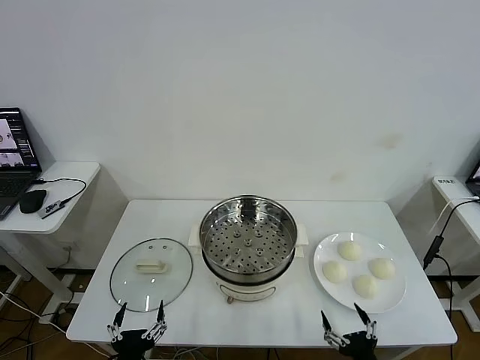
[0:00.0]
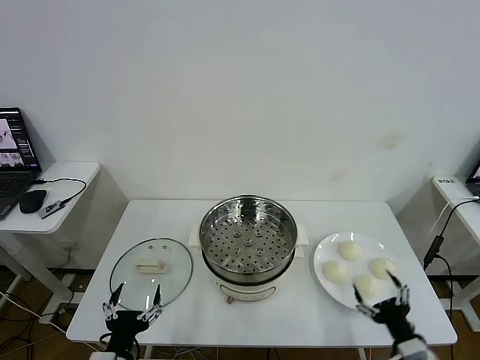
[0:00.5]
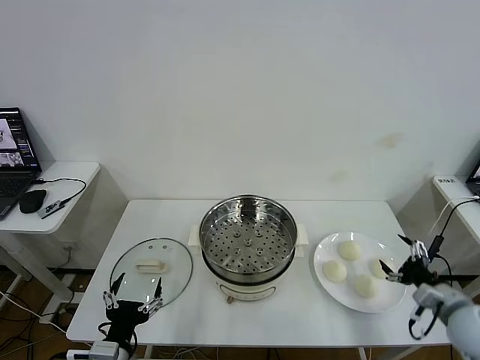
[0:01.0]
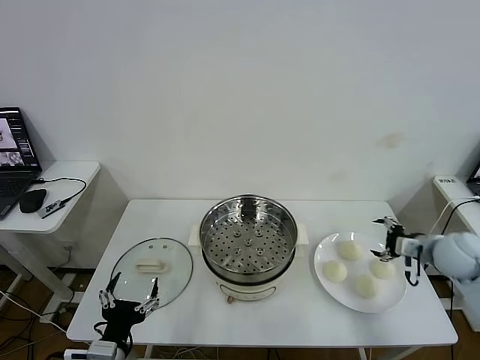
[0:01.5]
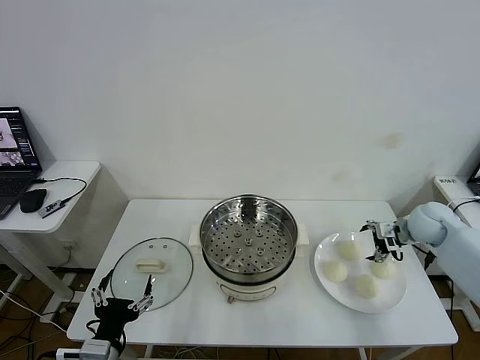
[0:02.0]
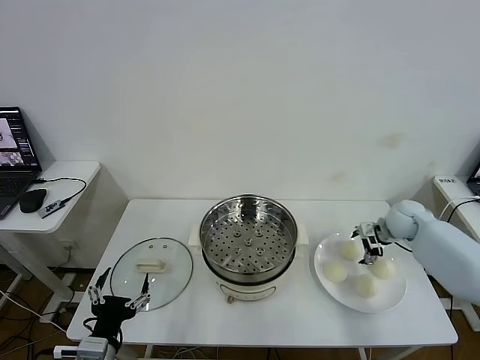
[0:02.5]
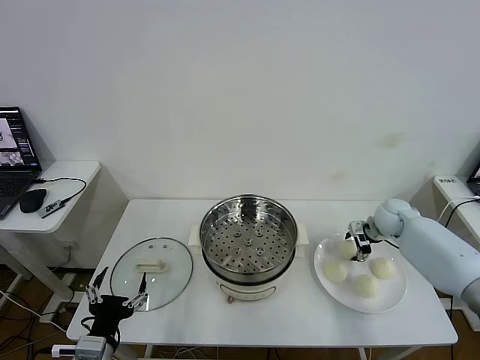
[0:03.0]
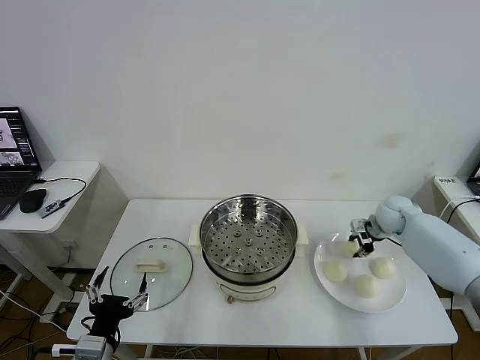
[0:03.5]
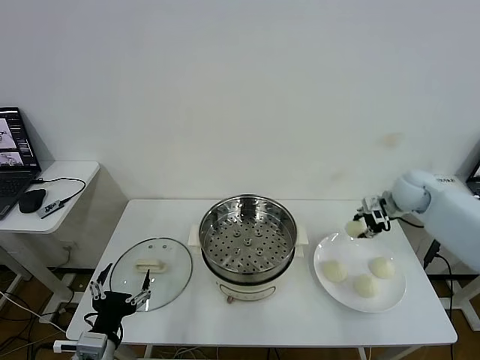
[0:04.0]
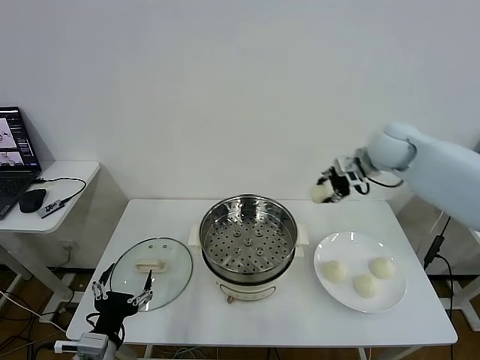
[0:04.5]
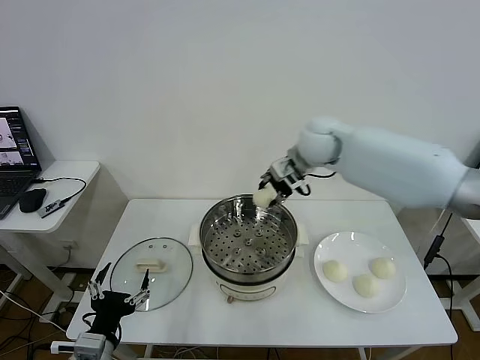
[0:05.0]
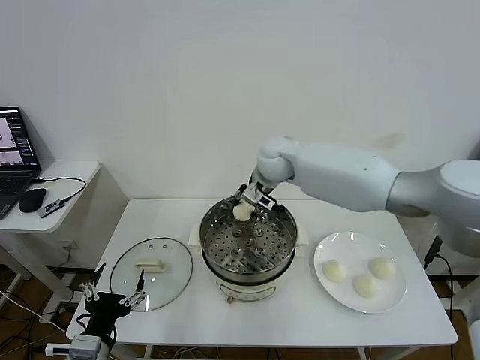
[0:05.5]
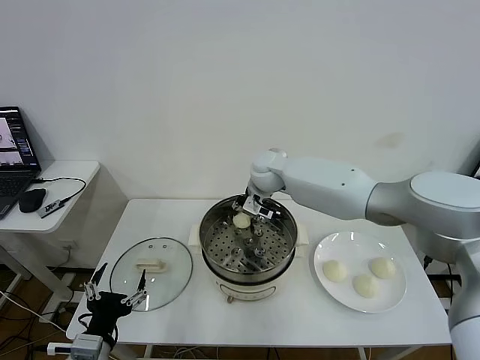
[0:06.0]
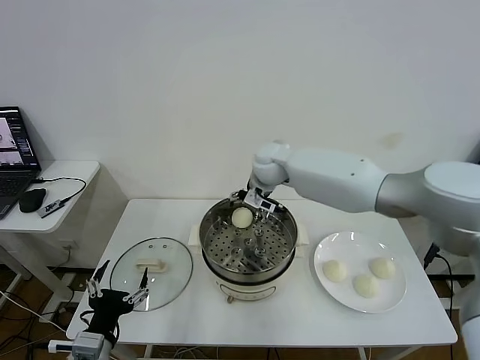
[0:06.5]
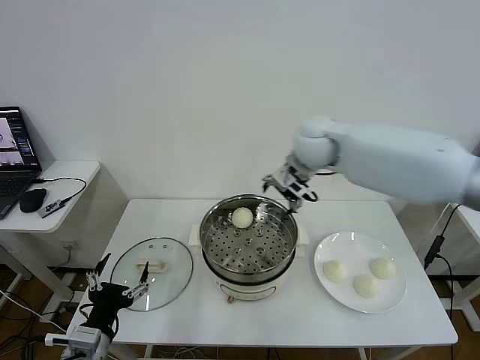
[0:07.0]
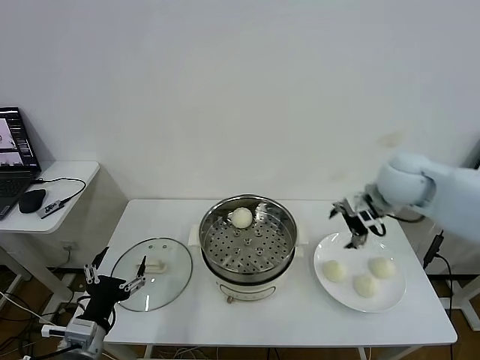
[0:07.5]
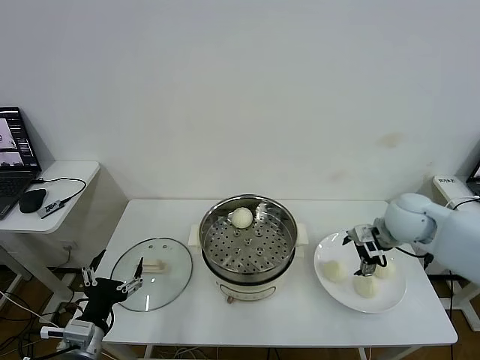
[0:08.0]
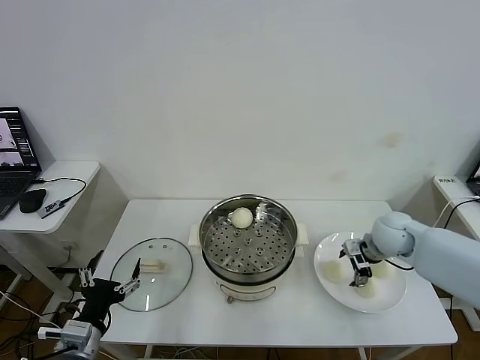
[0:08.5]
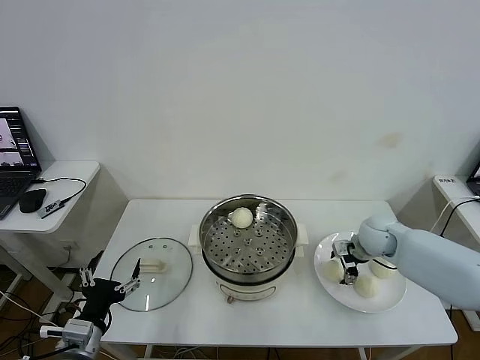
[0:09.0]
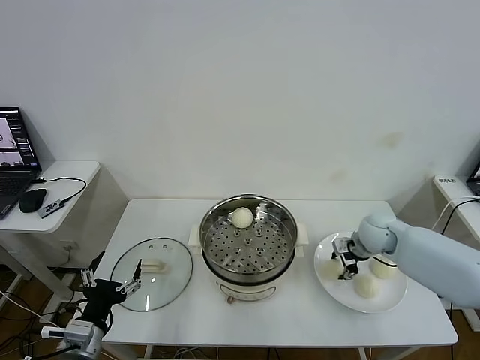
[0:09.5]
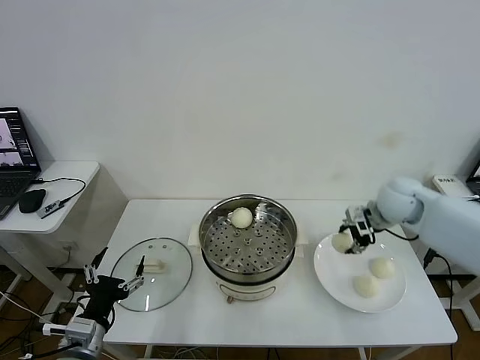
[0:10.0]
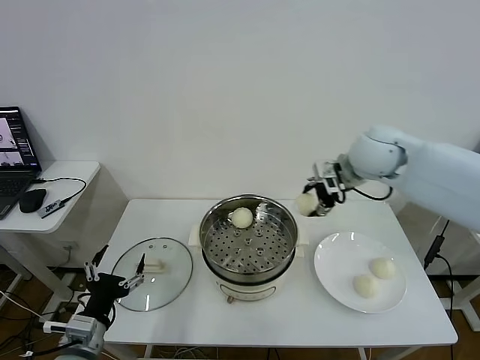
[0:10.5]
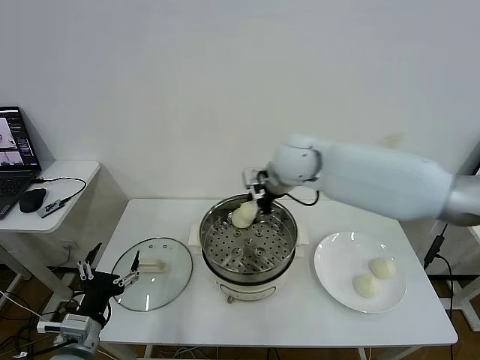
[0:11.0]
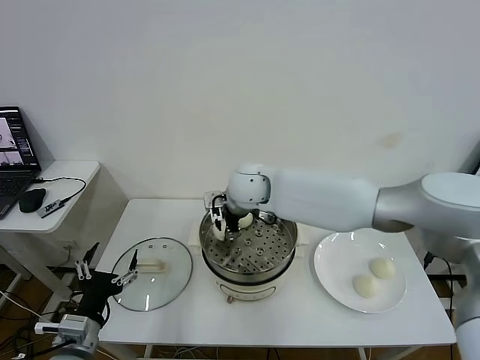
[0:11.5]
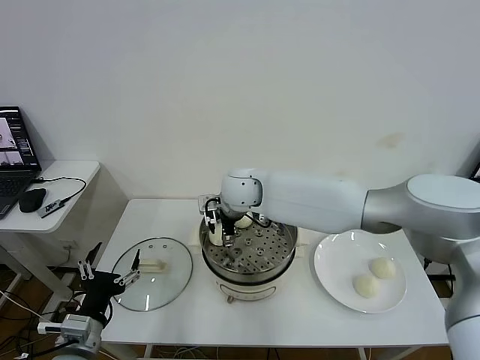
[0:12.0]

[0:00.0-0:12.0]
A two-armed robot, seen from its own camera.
Task of the whole recording: take steamed baozi put them in steamer then cover it.
Step, 0:00.0 to 0:03.0: Grasp the baozi in the plate with right gripper.
Step, 0:03.5 to 0:06.0: Place the baozi on the steamer with right gripper.
Step, 0:06.5 to 0:09.0: Grasp the baozi in the plate with right gripper.
Step, 0:09.5 to 0:11.5: Place the baozi on the steamer with right gripper.
0:02.0 to 0:04.0: The right gripper travels forward and upward by about 10 cm, and closes its fingers.
0:04.0 to 0:06.0: The right gripper shifts approximately 35 cm to the left.
0:06.0 to 0:08.0: The right gripper heads to the right and backward, covering roughly 30 cm, and opens.
0:08.0 to 0:10.0: The right gripper travels downward and back again, roughly 10 cm each way, and closes its fingers.
0:10.0 to 0:12.0: The right gripper moves to the left, roughly 35 cm, and opens its fingers.

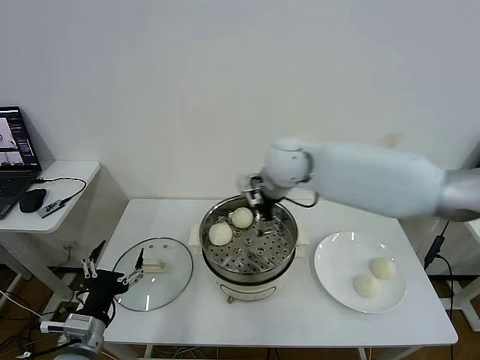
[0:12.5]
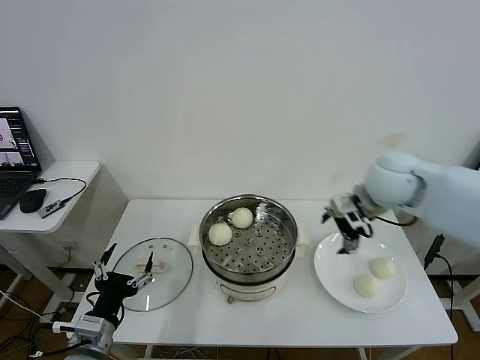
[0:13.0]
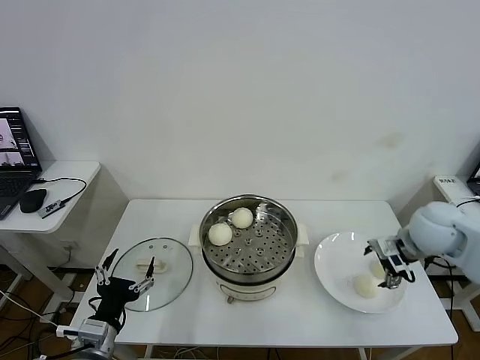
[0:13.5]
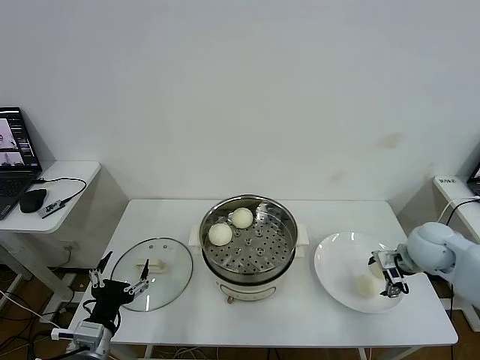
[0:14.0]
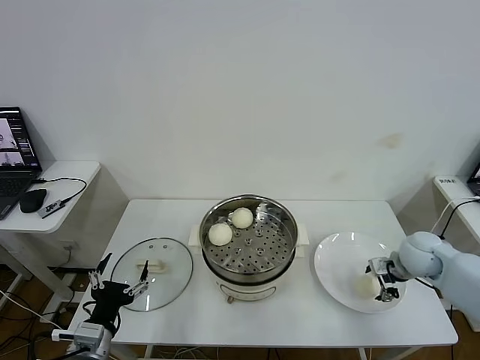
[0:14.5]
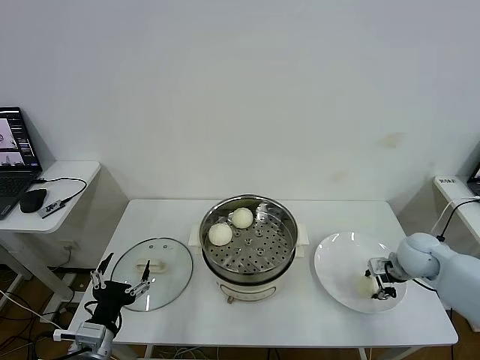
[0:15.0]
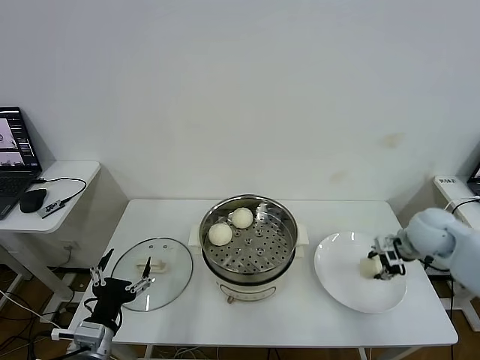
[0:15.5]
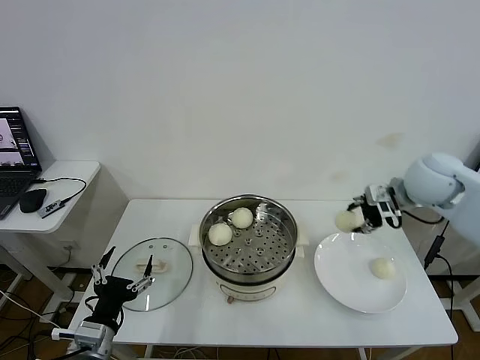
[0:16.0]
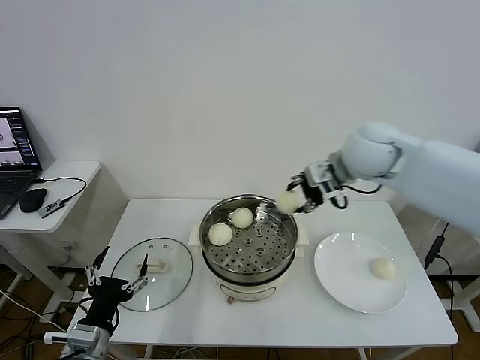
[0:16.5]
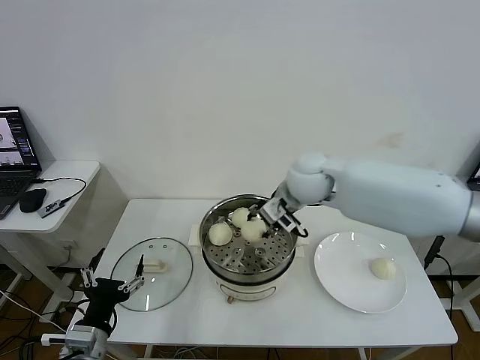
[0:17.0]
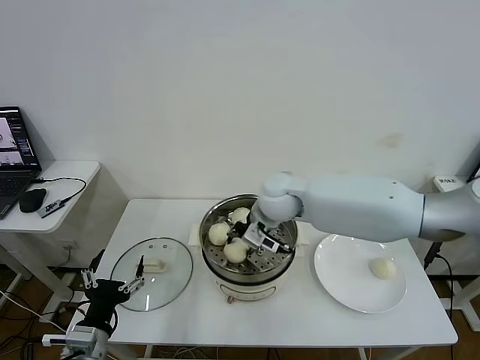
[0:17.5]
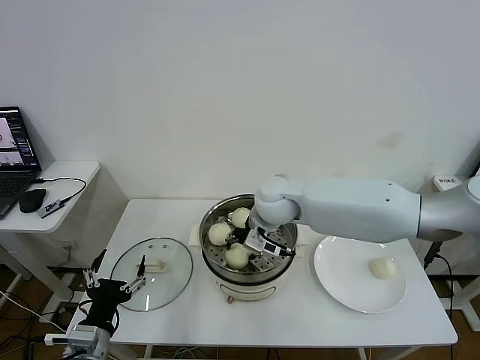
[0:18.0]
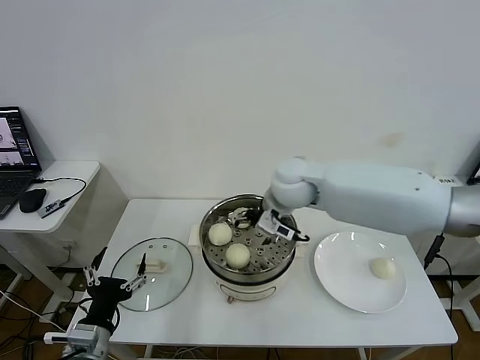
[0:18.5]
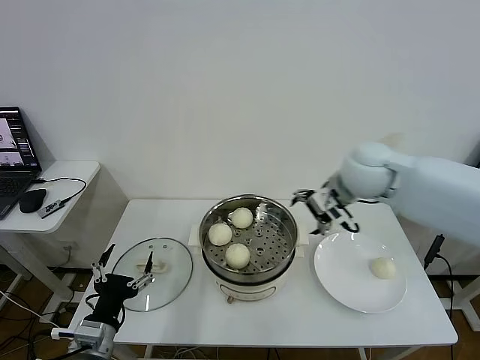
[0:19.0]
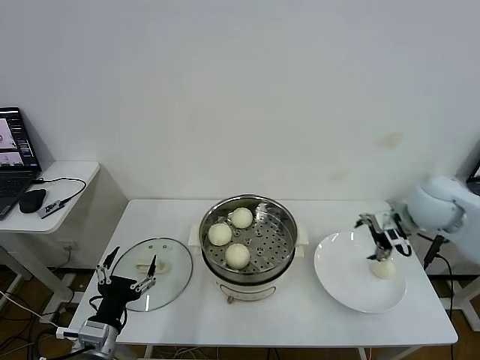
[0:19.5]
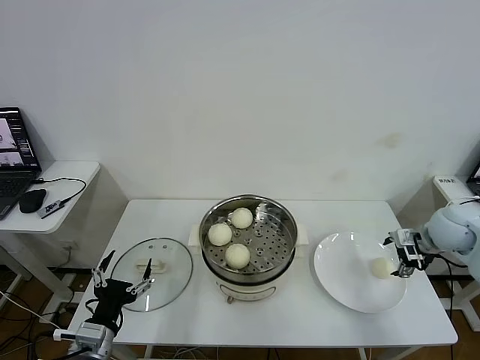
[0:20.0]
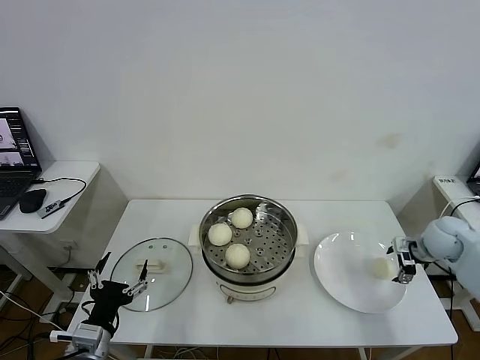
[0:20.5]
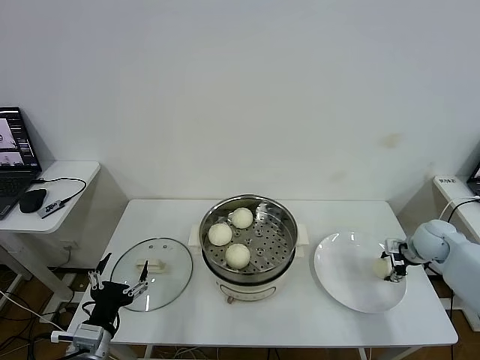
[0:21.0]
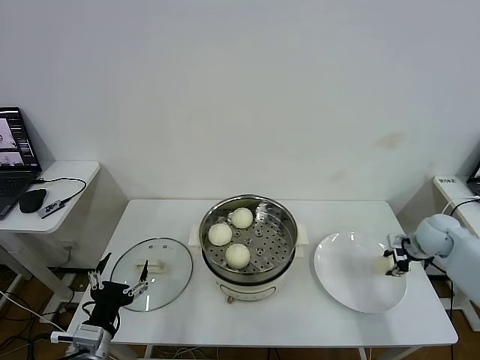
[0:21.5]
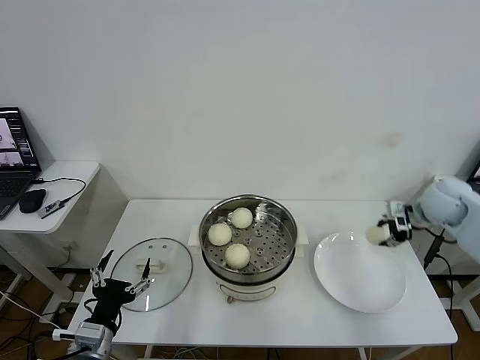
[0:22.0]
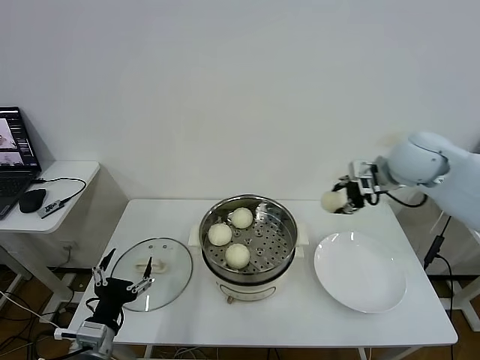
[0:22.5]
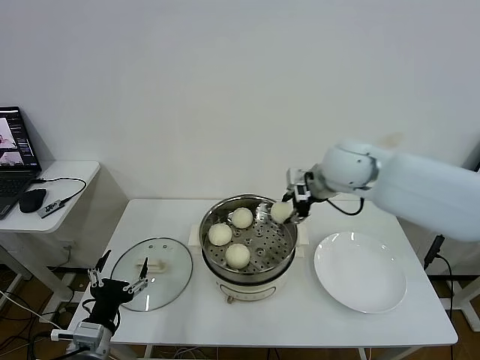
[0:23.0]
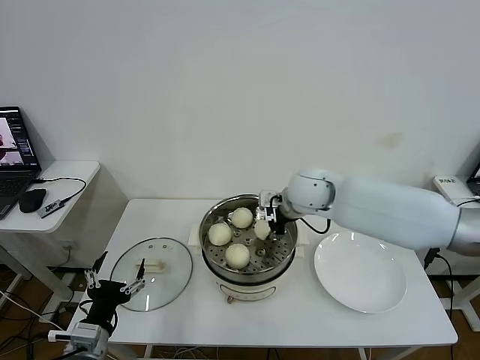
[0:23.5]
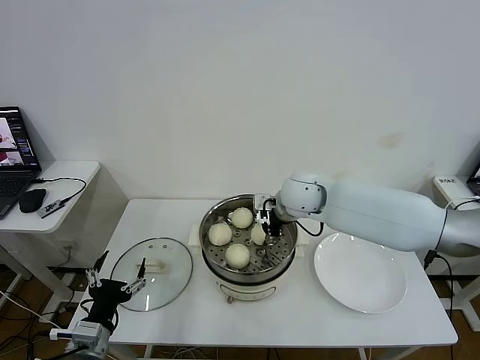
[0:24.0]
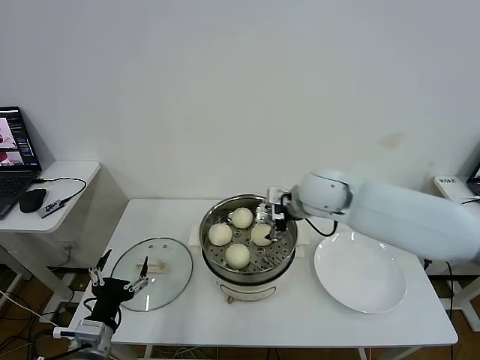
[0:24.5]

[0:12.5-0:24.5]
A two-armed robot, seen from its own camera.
Task of the whole recording: take steamed baozi put them in steamer then cover it.
Step, 0:12.5 to 0:14.5: Grasp the baozi in the plate with right gripper.
Step, 0:15.0 to 0:18.0: Place the baozi on the steamer with right gripper.
Step, 0:18.5 to 0:21.0: Grasp the baozi in the plate with right gripper.
Step, 0:21.5 to 0:24.0: Place the baozi on the steamer with right gripper.
0:12.5 to 0:14.5: The right gripper goes about 40 cm to the right and downward.
0:14.5 to 0:16.5: The right gripper goes some 30 cm upward and to the left, and closes its fingers.
0:16.5 to 0:18.5: The right gripper goes roughly 15 cm to the left and downward, and opens.
0:18.5 to 0:20.5: The right gripper goes about 40 cm to the right.
0:20.5 to 0:22.5: The right gripper heads upward and to the left, covering some 25 cm, and closes up.
0:22.5 to 0:24.5: The right gripper goes roughly 20 cm to the left, and opens up.

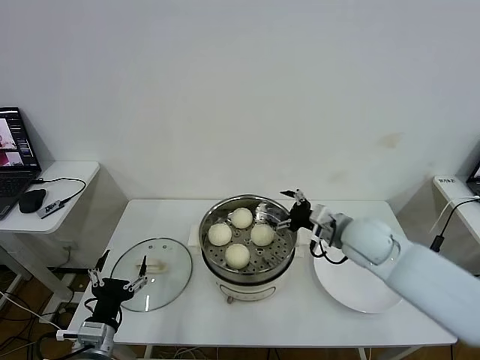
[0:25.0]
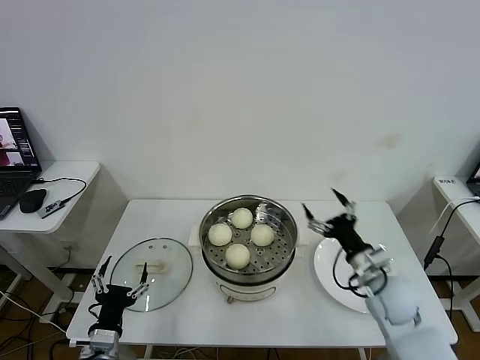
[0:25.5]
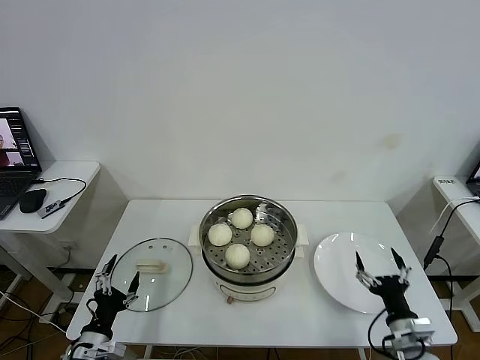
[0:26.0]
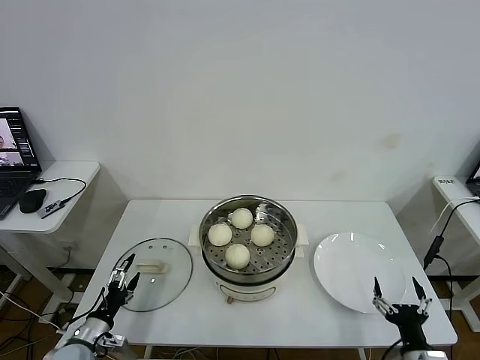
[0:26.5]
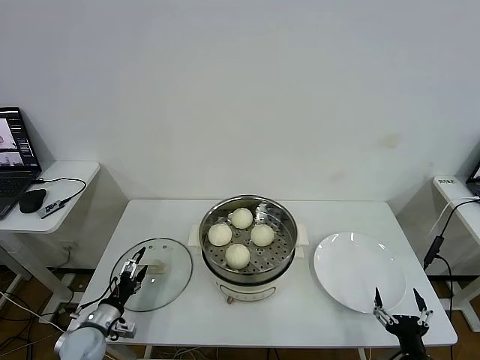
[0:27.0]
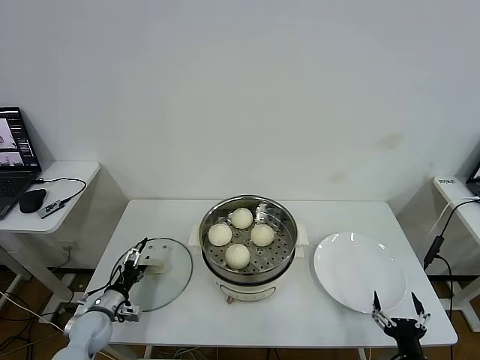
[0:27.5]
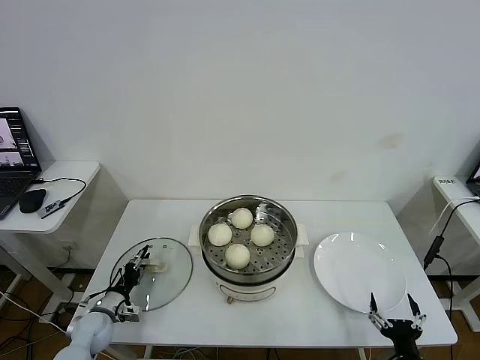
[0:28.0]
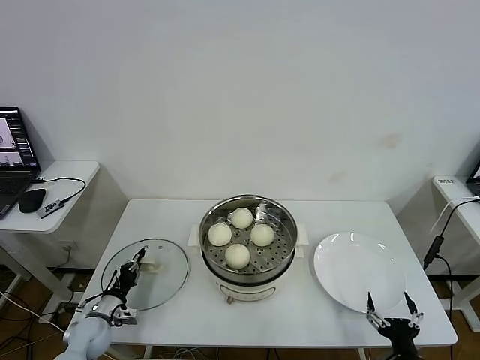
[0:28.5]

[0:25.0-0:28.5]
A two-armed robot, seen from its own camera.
Task of the whole recording: take steamed baozi put them in steamer then cover it.
Step, 0:25.0 to 0:28.0: Grasp the pot lid with left gripper.
0:25.0 to 0:27.0: The left gripper travels downward, to the left and forward by about 15 cm; the right gripper travels backward and downward by roughly 35 cm.
0:27.0 to 0:28.5: The left gripper shifts by about 5 cm, and closes up.
